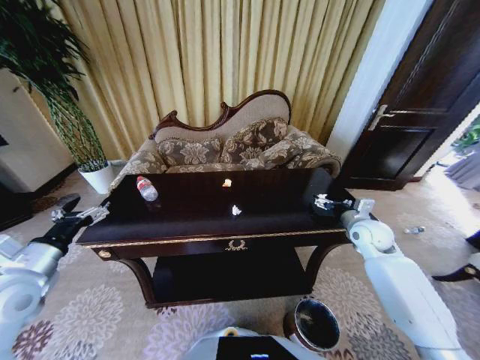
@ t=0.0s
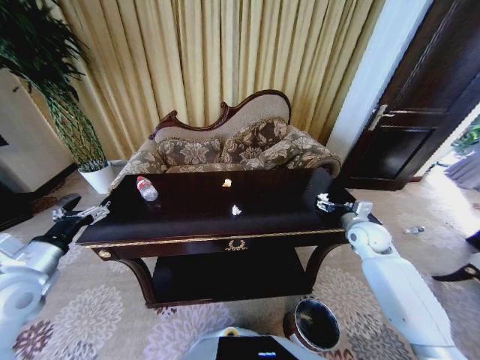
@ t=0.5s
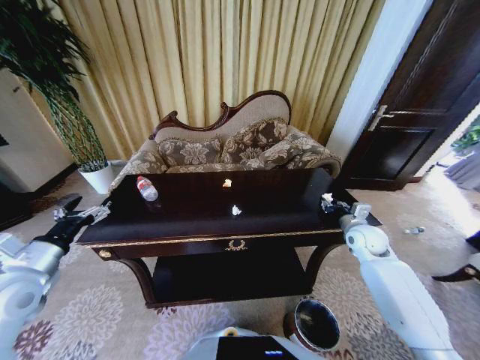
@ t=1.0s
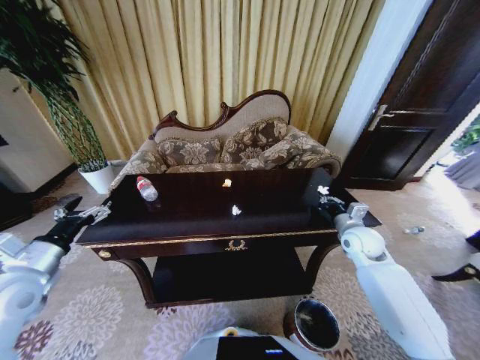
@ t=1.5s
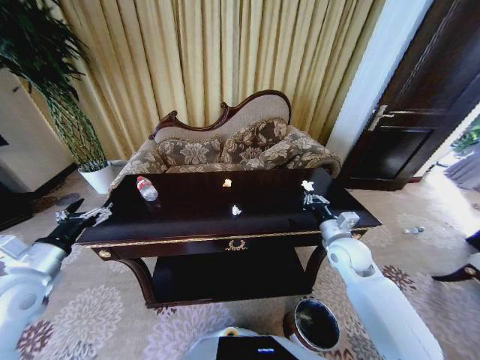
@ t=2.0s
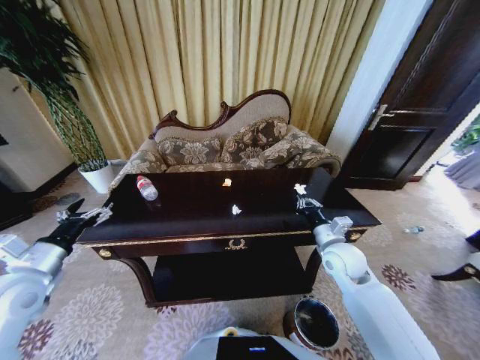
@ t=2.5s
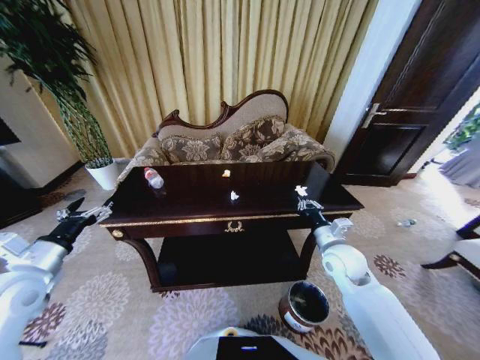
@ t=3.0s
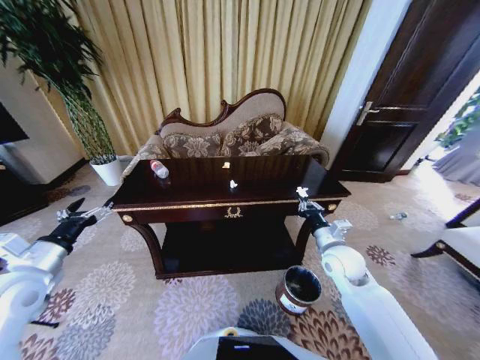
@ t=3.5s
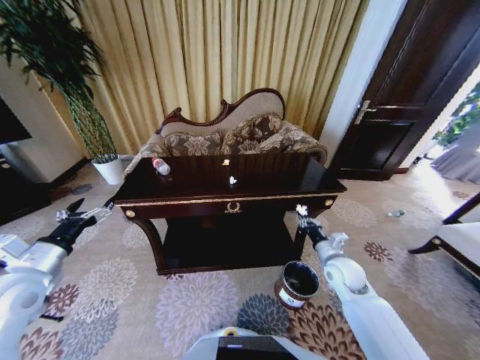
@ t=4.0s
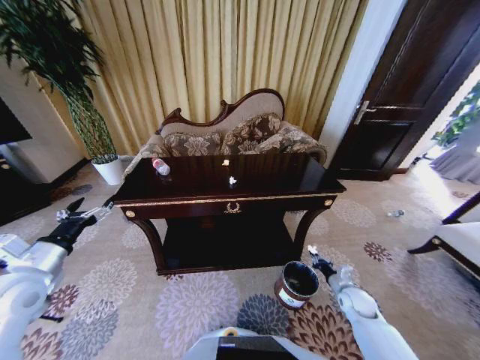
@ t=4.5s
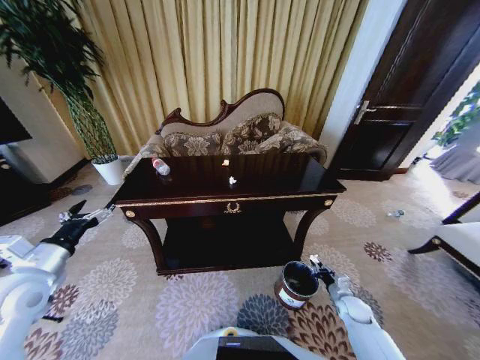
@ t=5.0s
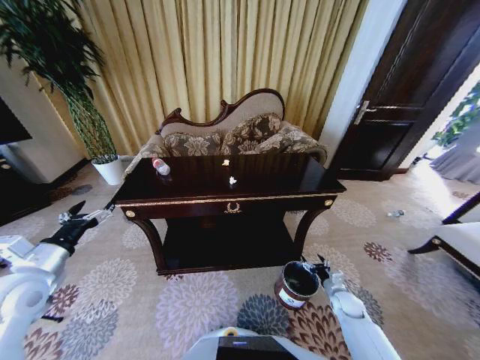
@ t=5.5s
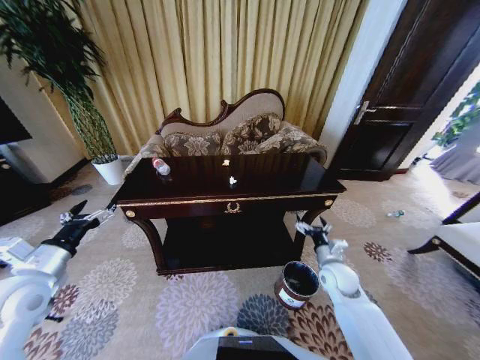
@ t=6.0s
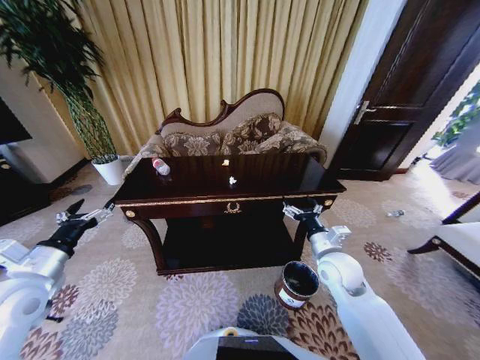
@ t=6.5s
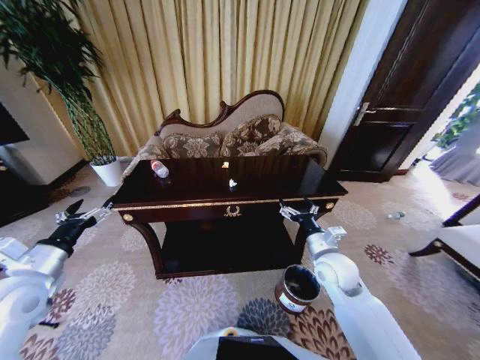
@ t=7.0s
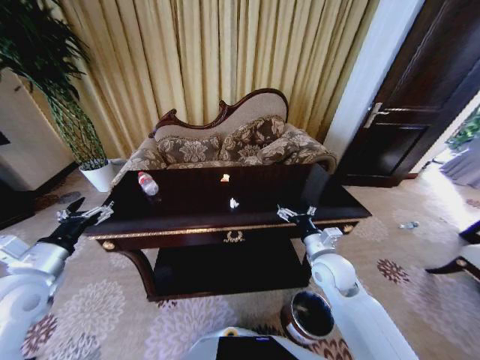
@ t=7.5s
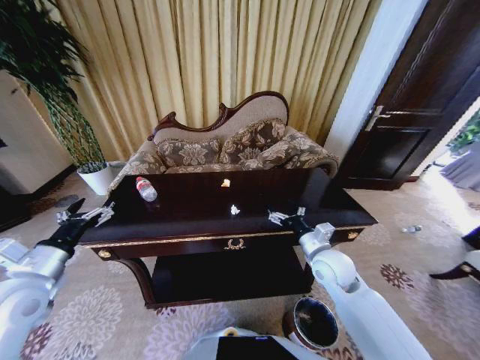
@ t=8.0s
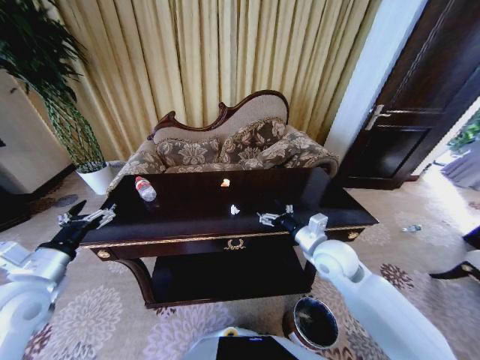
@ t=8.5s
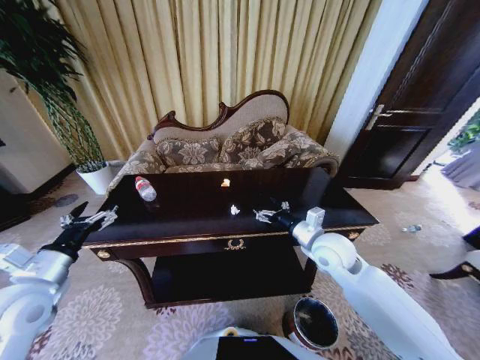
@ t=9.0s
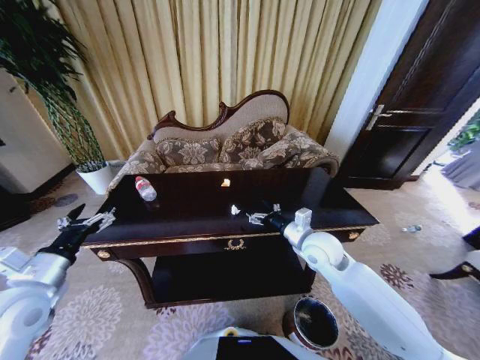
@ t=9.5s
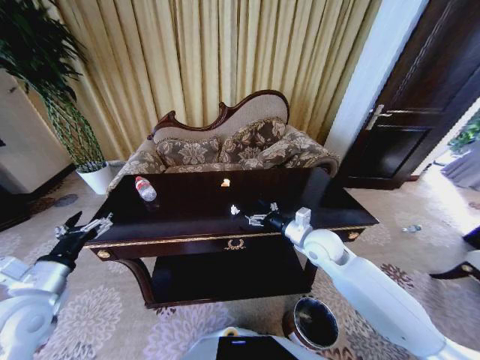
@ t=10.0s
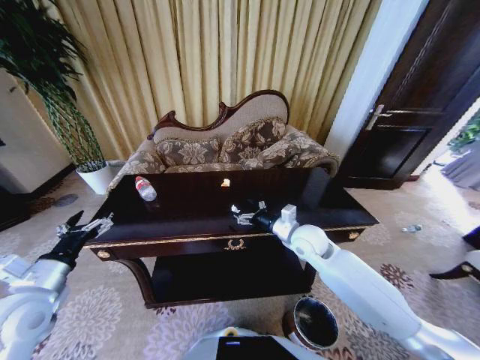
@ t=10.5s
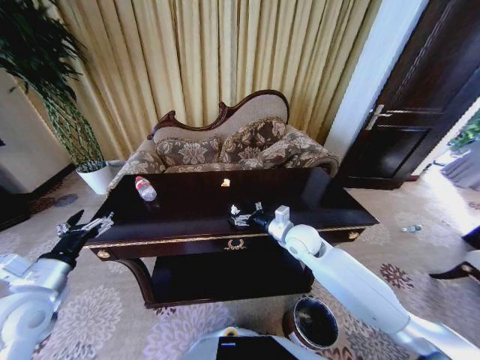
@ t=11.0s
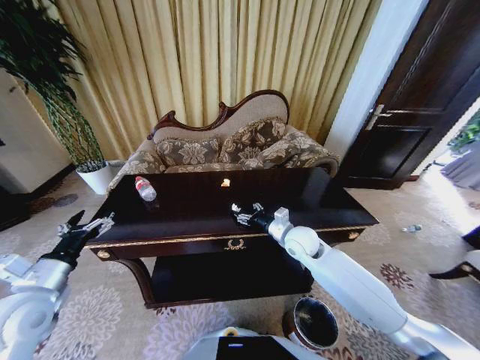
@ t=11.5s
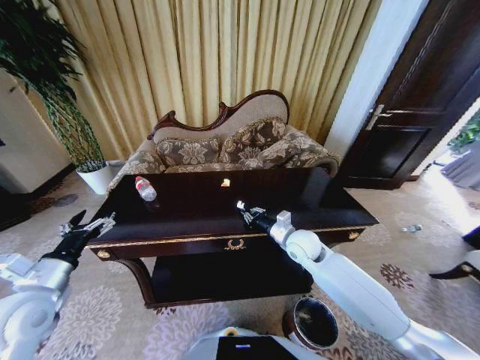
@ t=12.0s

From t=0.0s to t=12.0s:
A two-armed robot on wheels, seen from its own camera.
Task of the whole recording: Move to the front of the table and place the trash on the table into the trash bin.
From t=0.0s to t=2.0s: The right gripper is displaced to the left and backward by some 10 cm, and closes up.
From t=2.0s to t=4.0s: The right gripper is displaced downward by roughly 5 cm.
From t=4.0s to t=6.0s: The right gripper goes downward and returns, roughly 20 cm each way, and opens up.
From t=6.0s to t=8.0s: The right gripper travels upward and to the left by about 10 cm.
From t=8.0s to t=10.0s: The right gripper shifts approximately 5 cm forward.
From t=10.0s to t=12.0s: The right gripper changes place by about 5 cm, and closes.

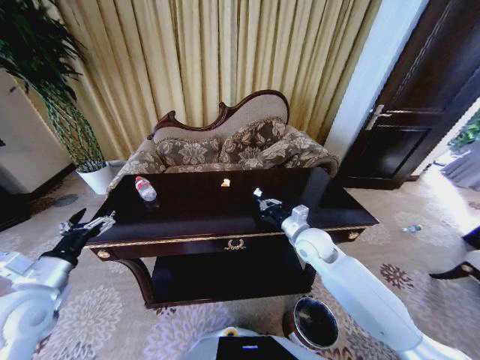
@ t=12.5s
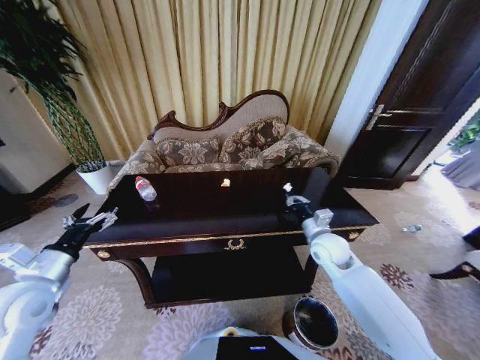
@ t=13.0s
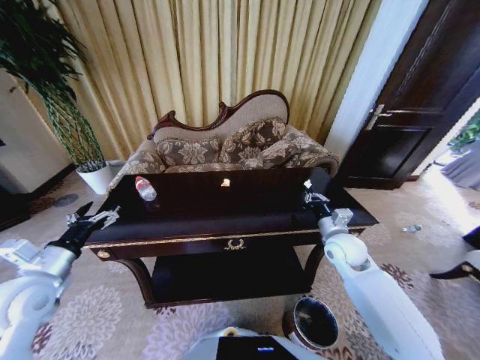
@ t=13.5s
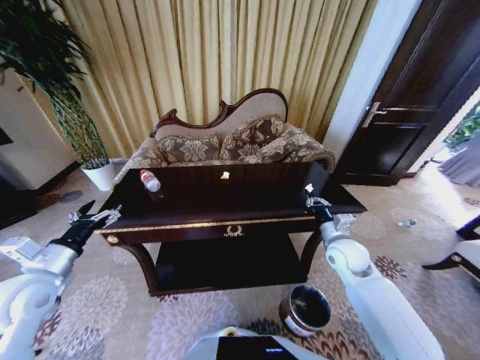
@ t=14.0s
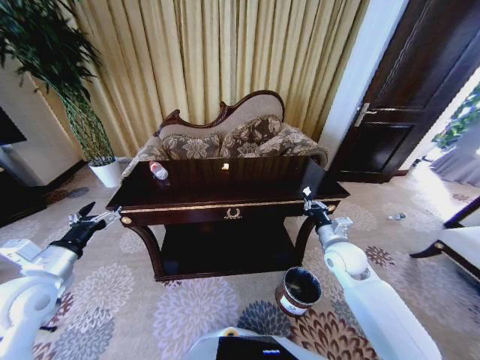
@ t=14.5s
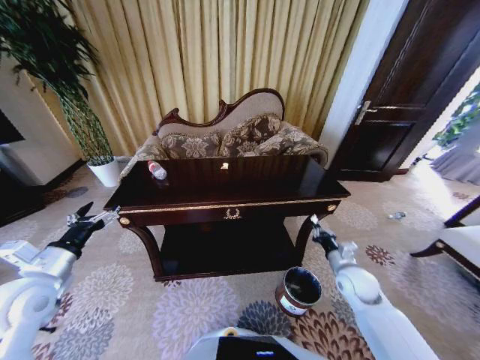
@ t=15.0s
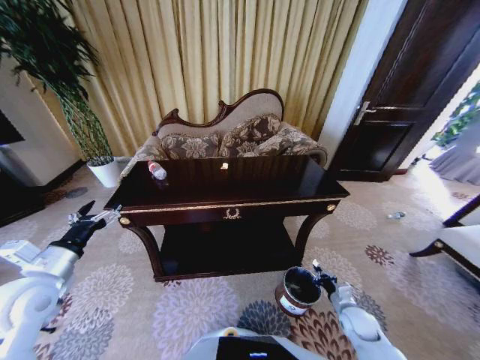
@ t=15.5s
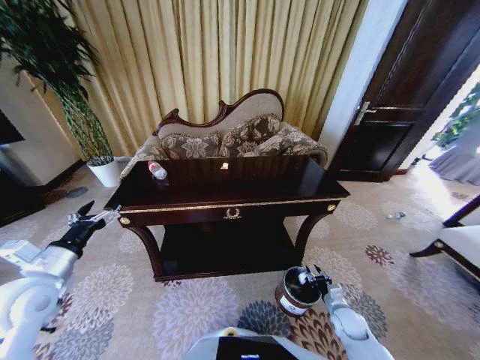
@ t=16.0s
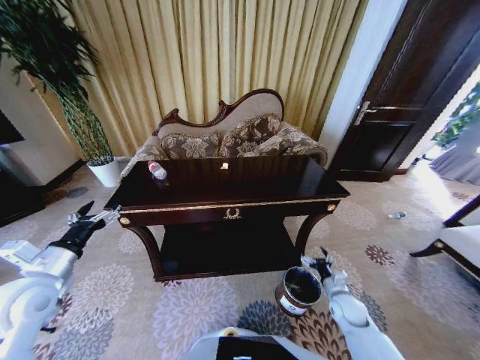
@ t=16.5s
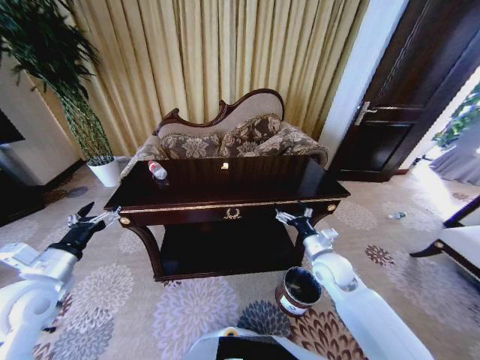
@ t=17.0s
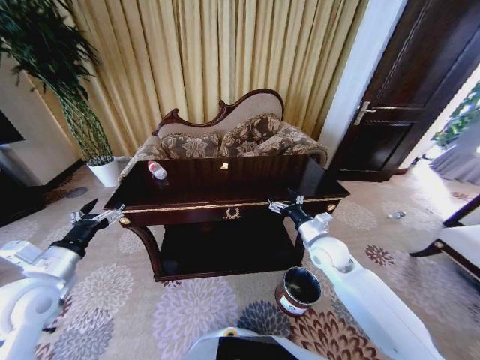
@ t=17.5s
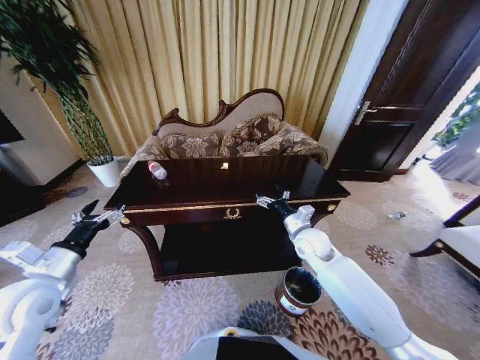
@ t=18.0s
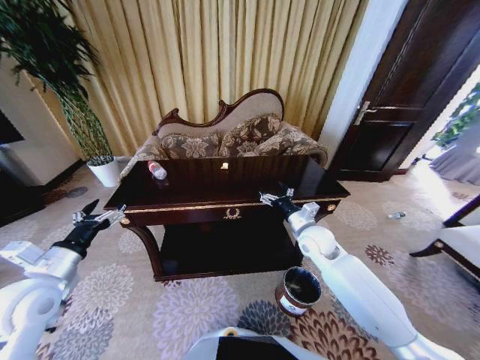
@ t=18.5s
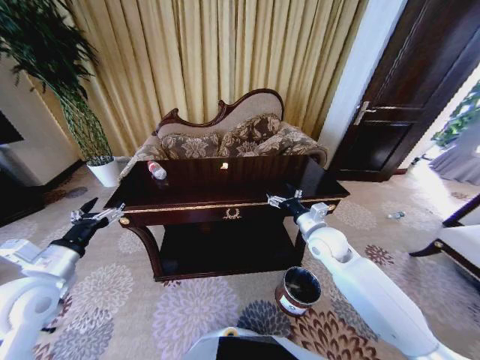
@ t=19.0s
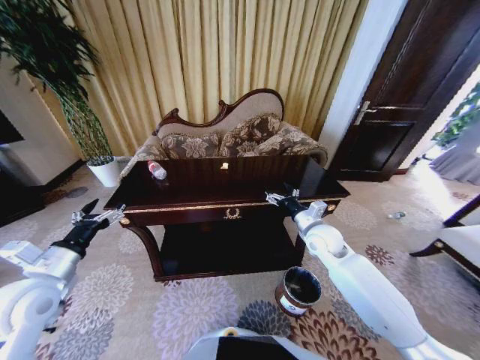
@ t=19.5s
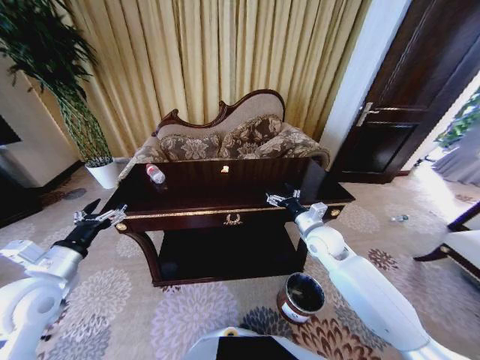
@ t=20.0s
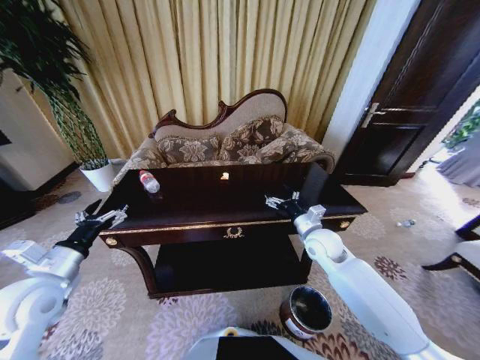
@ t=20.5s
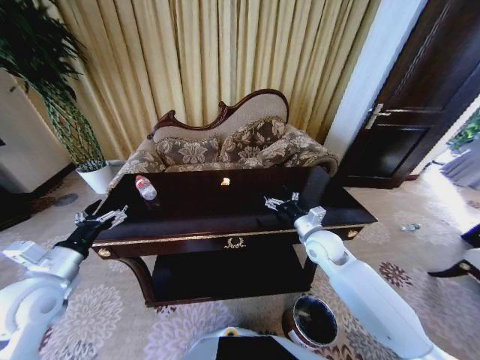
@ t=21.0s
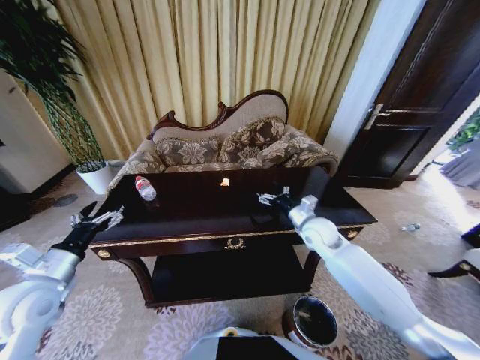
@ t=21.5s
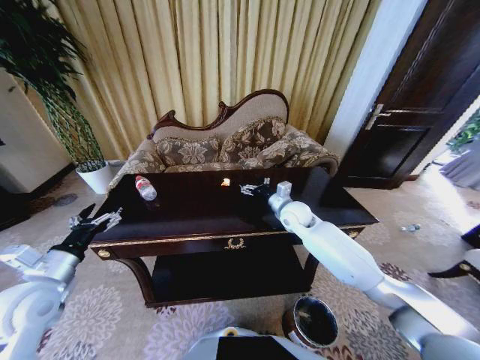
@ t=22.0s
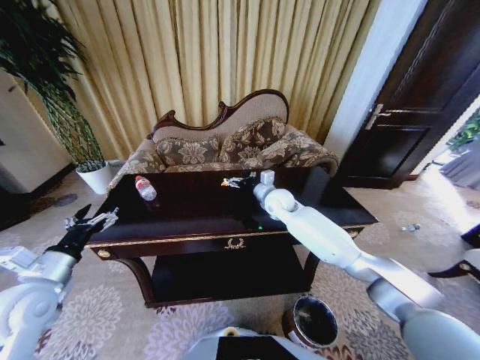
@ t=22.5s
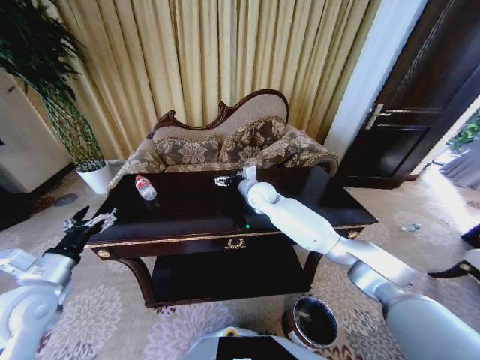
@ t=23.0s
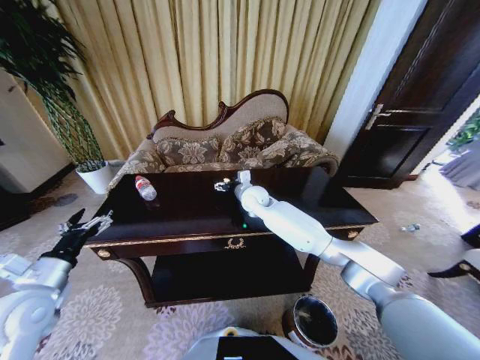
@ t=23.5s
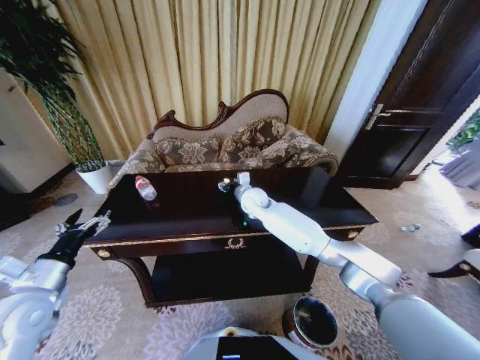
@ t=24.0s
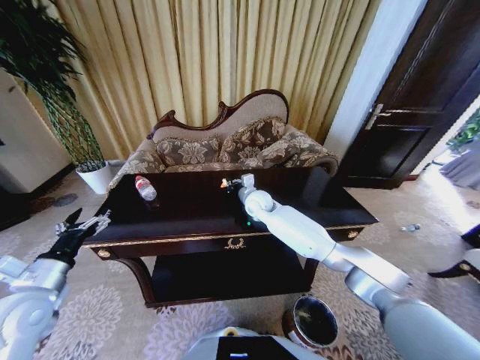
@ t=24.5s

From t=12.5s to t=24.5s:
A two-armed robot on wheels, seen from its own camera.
Task of the whole recording: Move to the front of the table and place the trash on the table into the trash bin.
From t=12.5s to t=14.5s: The right gripper travels to the right by approximately 10 cm.
From t=14.5s to t=16.5s: The right gripper moves downward and backward, approximately 20 cm, and opens its fingers.
From t=16.5s to t=18.5s: The right gripper heads upward, forward and to the left, covering some 25 cm.
From t=20.5s to t=22.5s: The right gripper is displaced forward and to the left by some 15 cm.
From t=22.5s to t=24.5s: The right gripper goes roughly 5 cm to the left, and closes up.

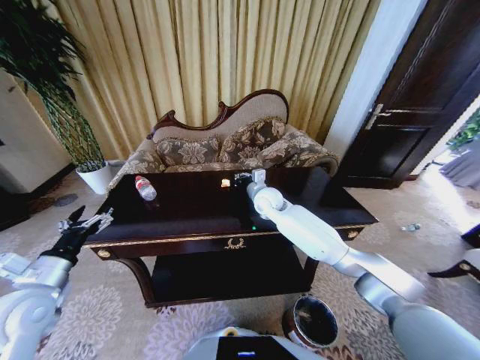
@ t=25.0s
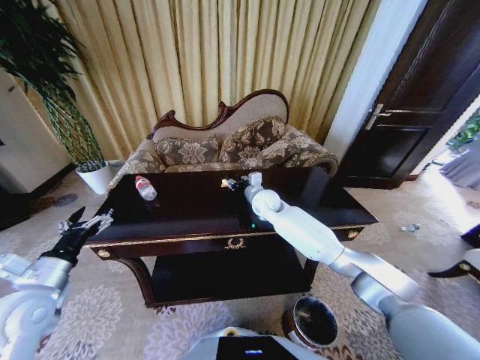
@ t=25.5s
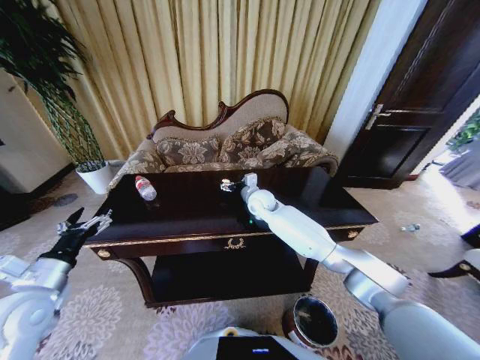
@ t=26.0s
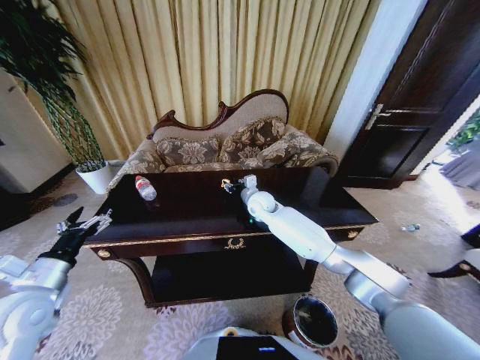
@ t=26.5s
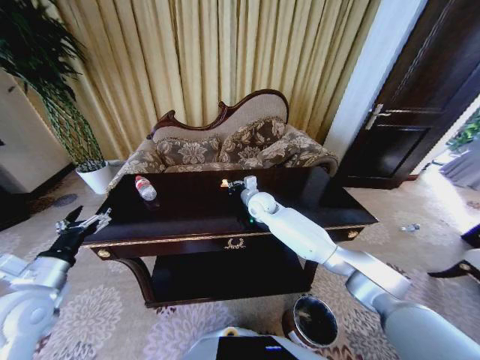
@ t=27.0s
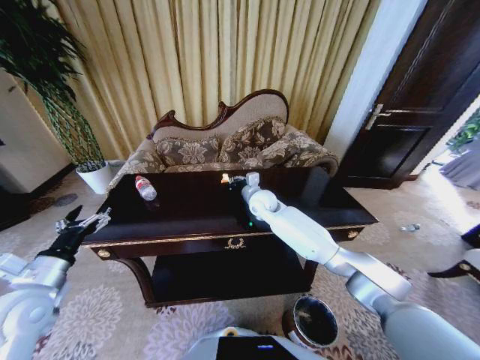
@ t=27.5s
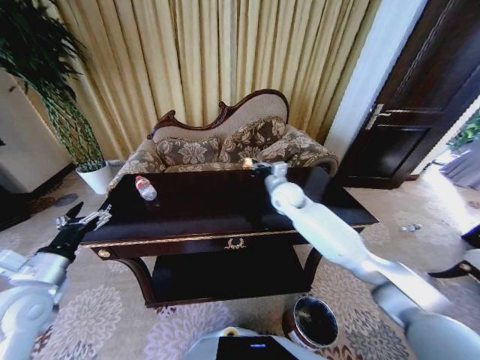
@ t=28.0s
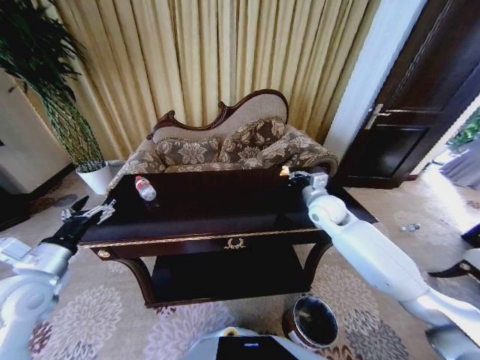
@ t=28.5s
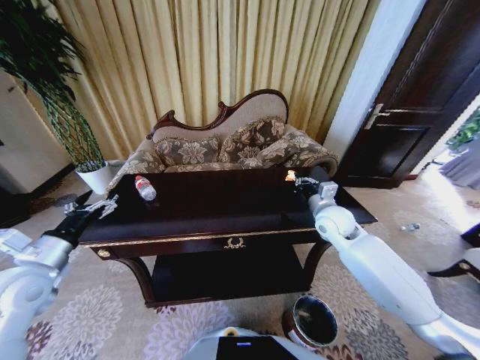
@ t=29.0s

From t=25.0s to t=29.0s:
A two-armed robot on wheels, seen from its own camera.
Task of the whole recording: Move to the front of the table and place the trash on the table into the trash bin.
From t=25.0s to t=27.0s: The right gripper opens and closes again.
From t=27.0s to t=29.0s: The right gripper shifts approximately 20 cm to the right and backward.
